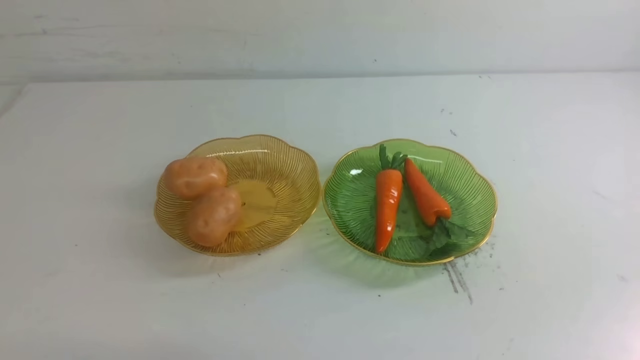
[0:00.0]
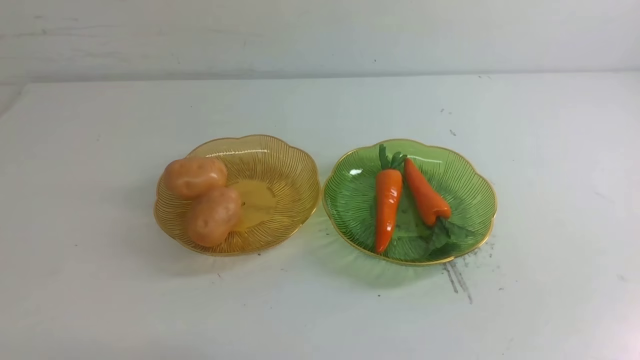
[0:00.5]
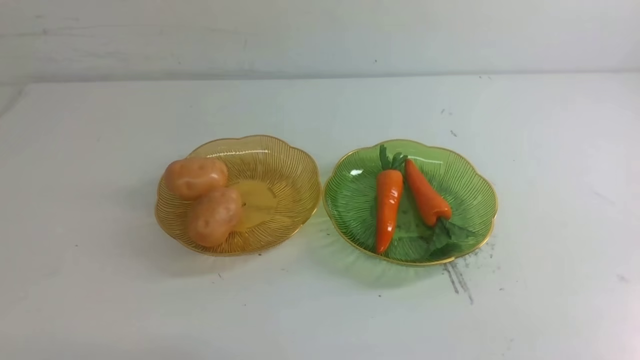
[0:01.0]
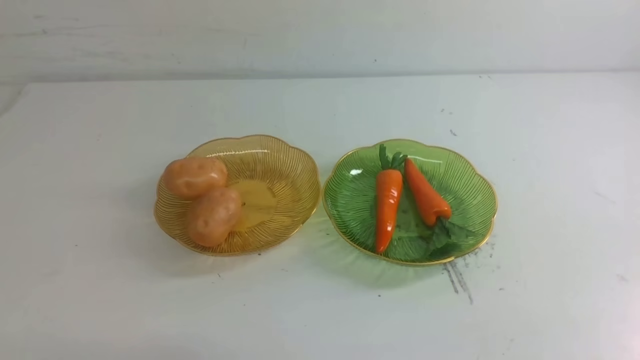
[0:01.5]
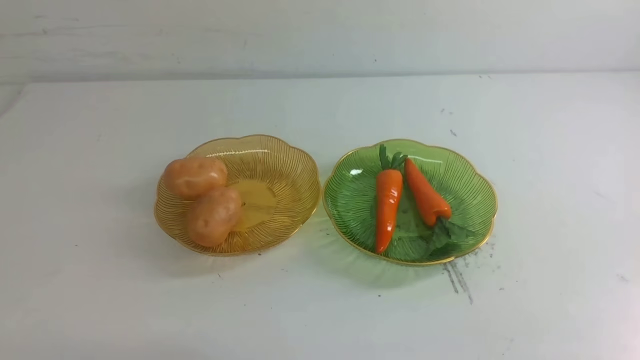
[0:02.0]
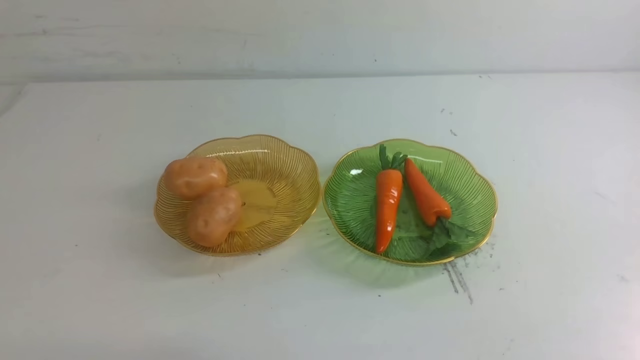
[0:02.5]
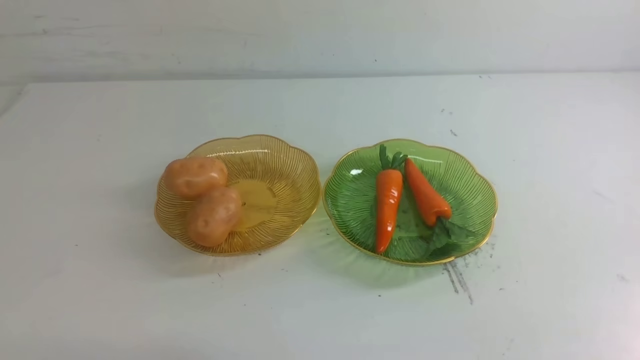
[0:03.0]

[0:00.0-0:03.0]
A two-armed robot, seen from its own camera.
0:01.5 to 0:03.0: Both grippers stay about where they are.

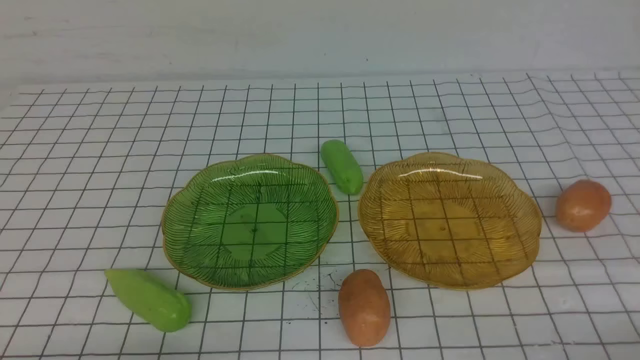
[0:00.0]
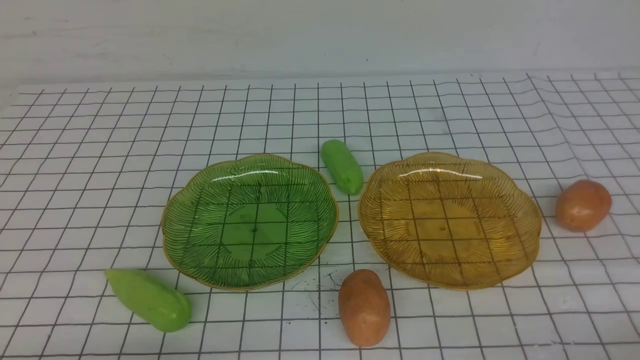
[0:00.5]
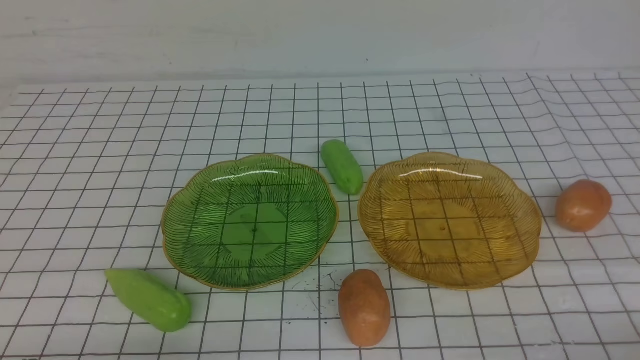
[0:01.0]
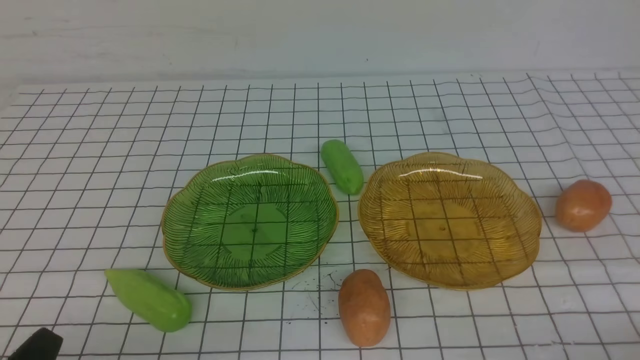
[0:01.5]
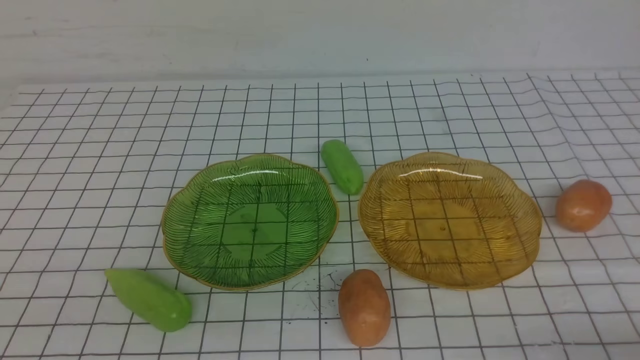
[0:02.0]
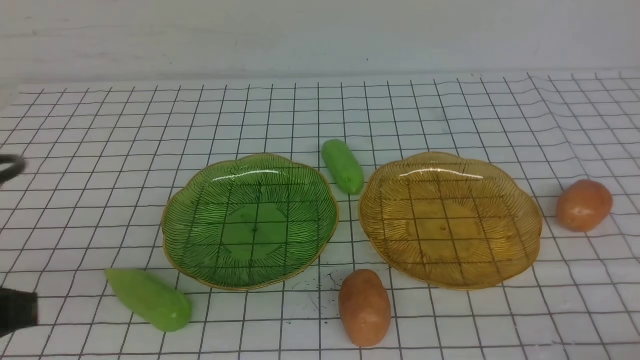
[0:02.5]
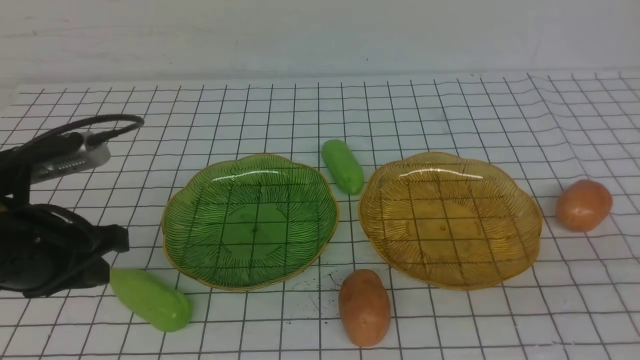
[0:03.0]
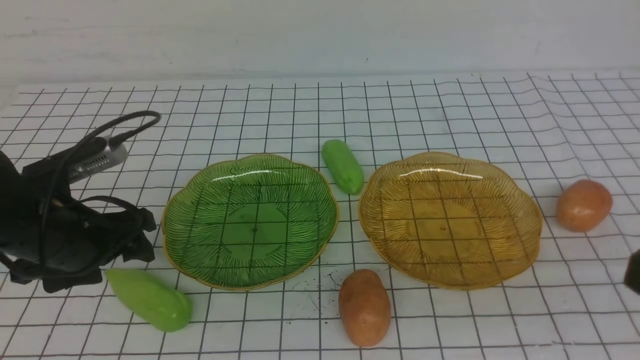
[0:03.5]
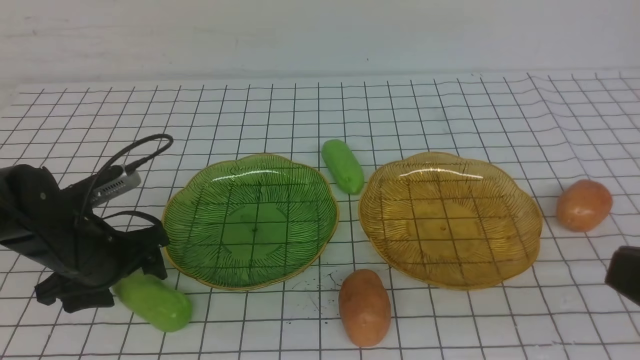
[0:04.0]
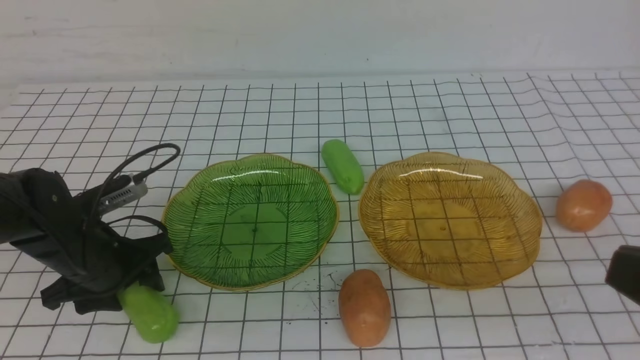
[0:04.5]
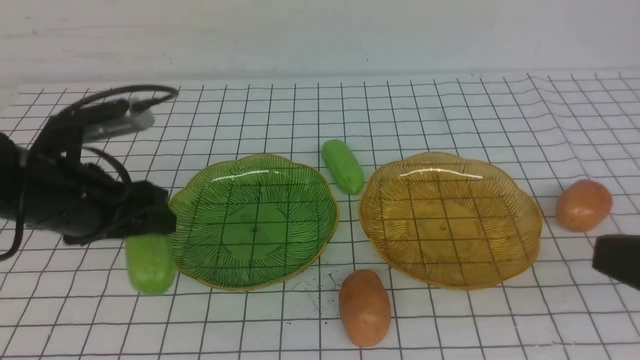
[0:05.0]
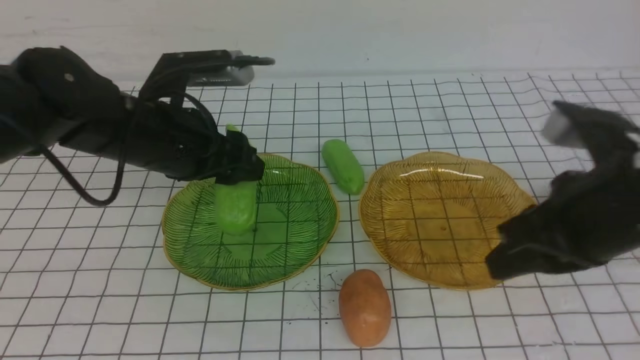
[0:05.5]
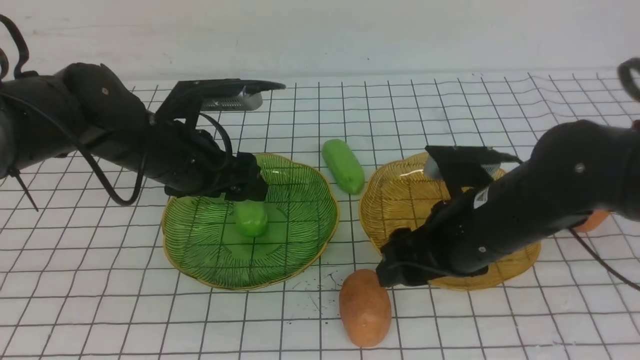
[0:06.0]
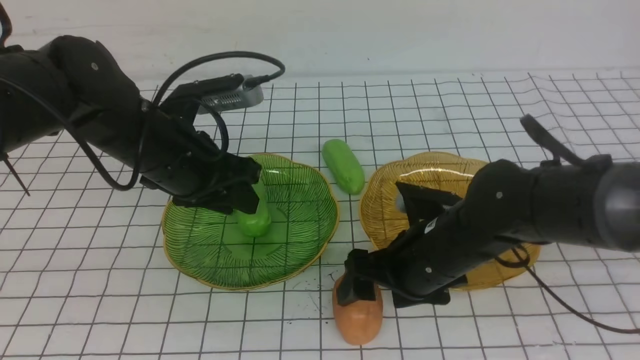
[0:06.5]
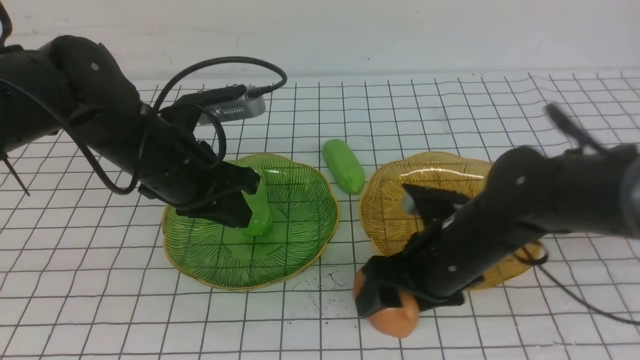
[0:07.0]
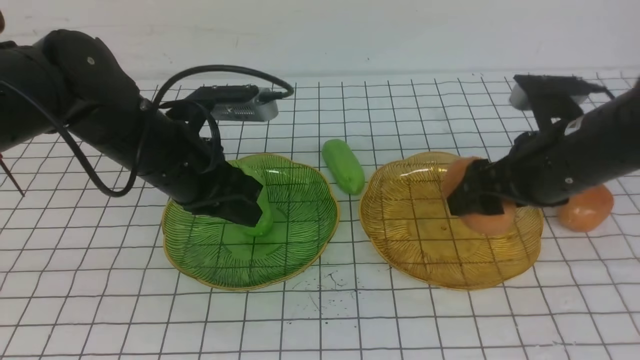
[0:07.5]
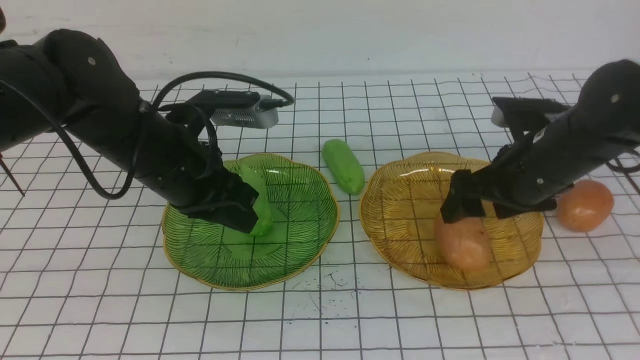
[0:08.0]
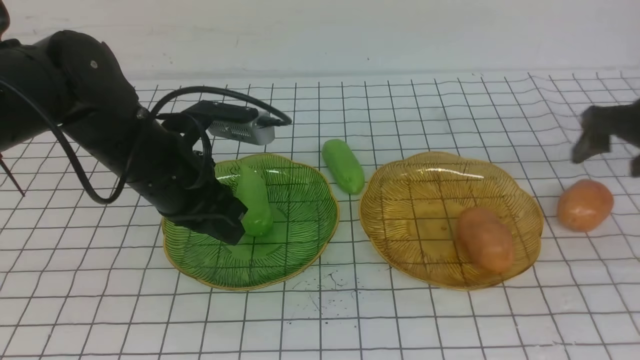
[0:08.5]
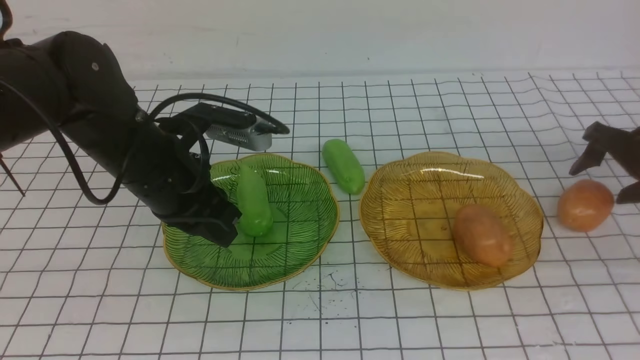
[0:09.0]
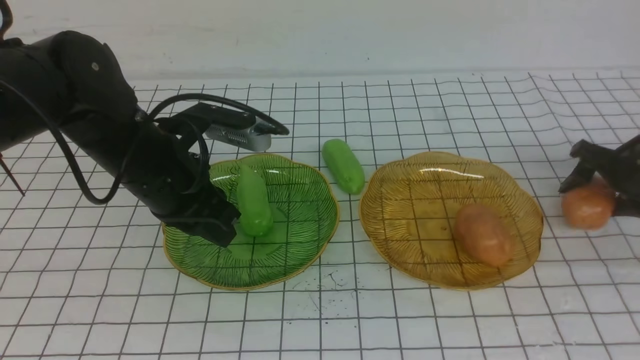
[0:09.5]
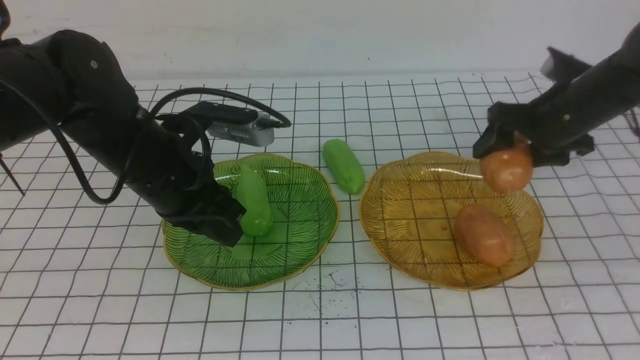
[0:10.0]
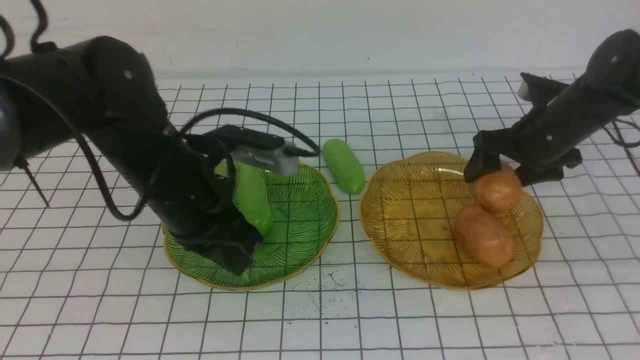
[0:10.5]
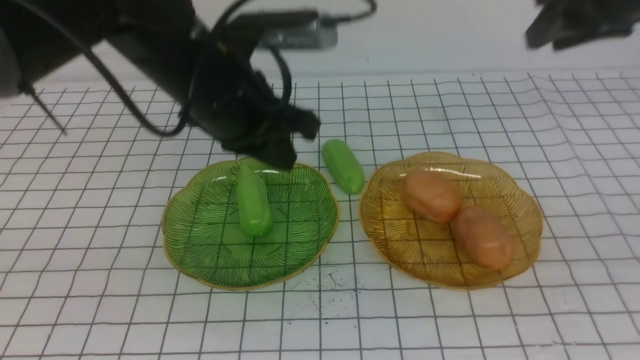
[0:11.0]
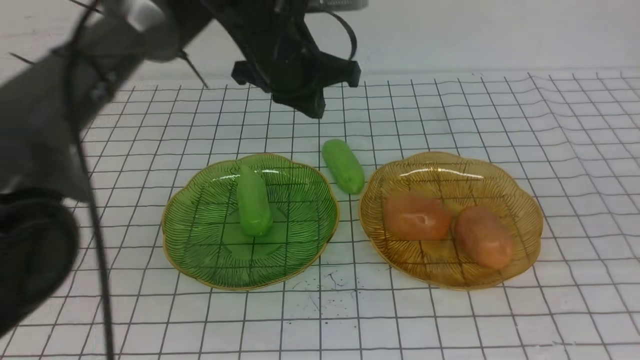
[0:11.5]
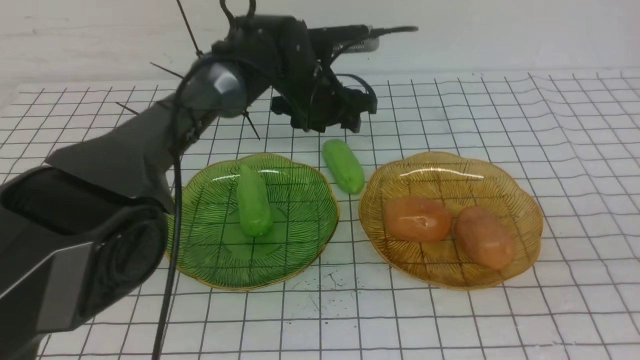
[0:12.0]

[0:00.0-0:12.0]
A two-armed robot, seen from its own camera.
Step, 0:00.0 to 0:06.5: use the left arm to grab a chayote and put it into the left plate.
Step, 0:07.0 to 0:08.0: Grab a potato with your right arm and put it on the right plate.
Step, 0:08.5 to 0:10.5: Grab a potato with your right arm and put it on the right plate.
0:02.0 to 0:04.0: The right gripper travels upward by some 15 cm. The left gripper moves forward and downward, roughly 30 cm, and opens.
0:04.0 to 0:06.0: The left gripper moves to the right, upward and forward, approximately 15 cm. The right gripper is displaced forward, to the left and downward by some 25 cm, and opens up.
0:06.0 to 0:08.0: The right gripper shifts approximately 15 cm to the right and forward, while the left gripper closes up.
0:08.0 to 0:10.0: The right gripper shifts some 10 cm forward and to the right.
0:10.0 to 0:12.0: The right gripper heads backward and upward, covering some 40 cm, and closes. The left gripper travels forward and to the right by about 20 cm, and opens.

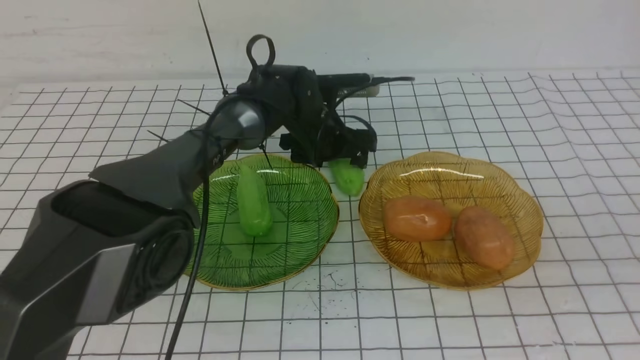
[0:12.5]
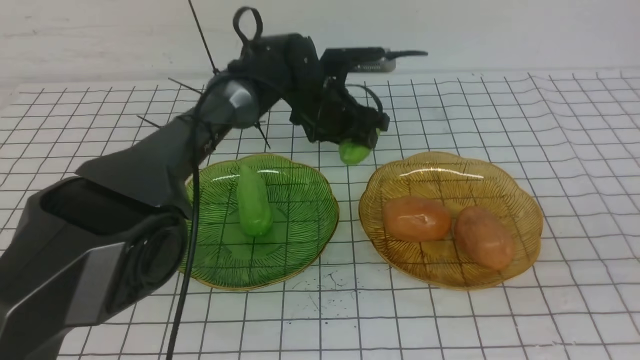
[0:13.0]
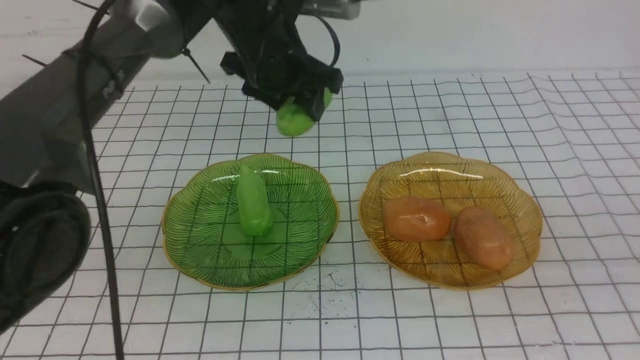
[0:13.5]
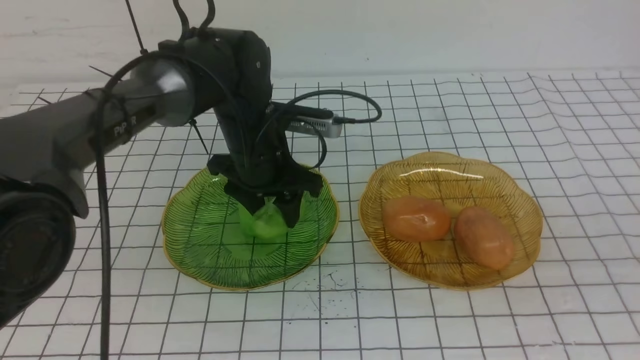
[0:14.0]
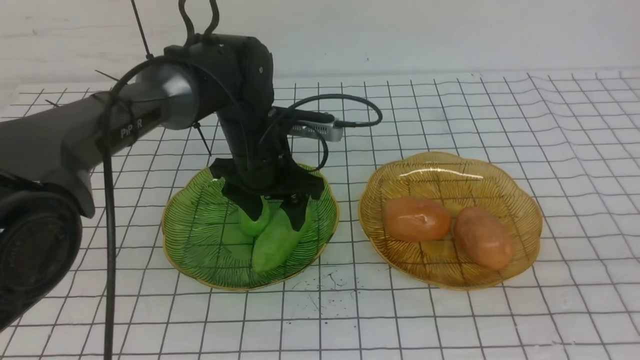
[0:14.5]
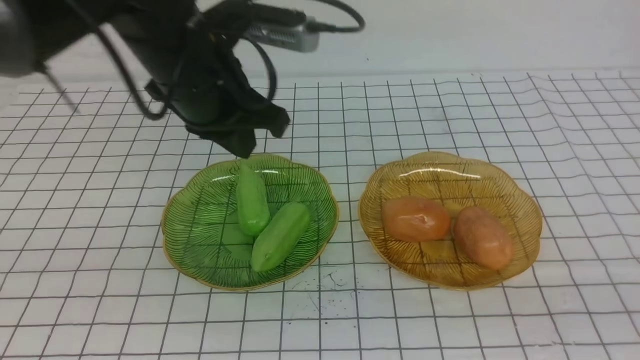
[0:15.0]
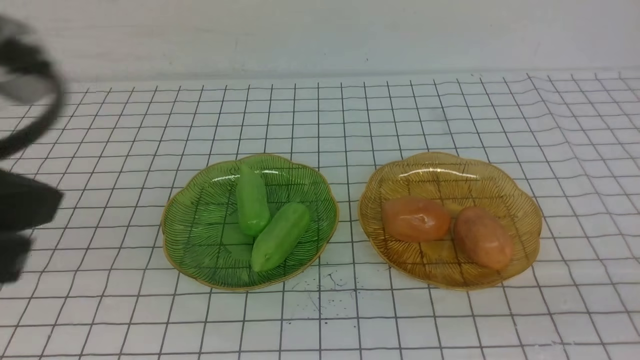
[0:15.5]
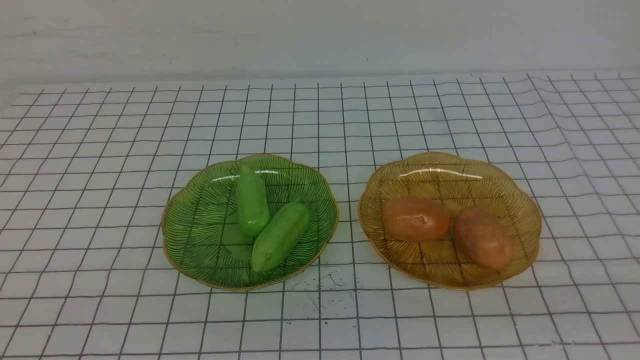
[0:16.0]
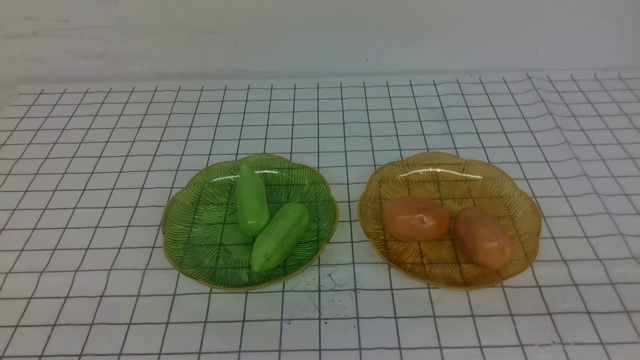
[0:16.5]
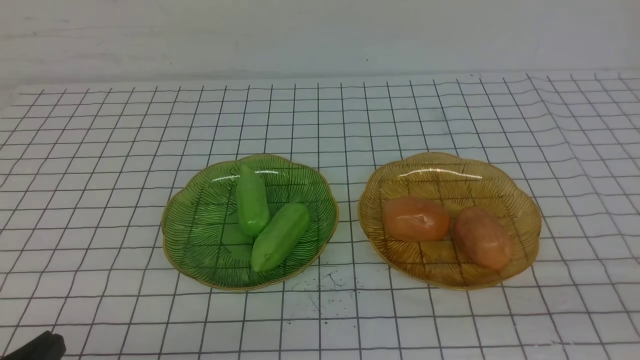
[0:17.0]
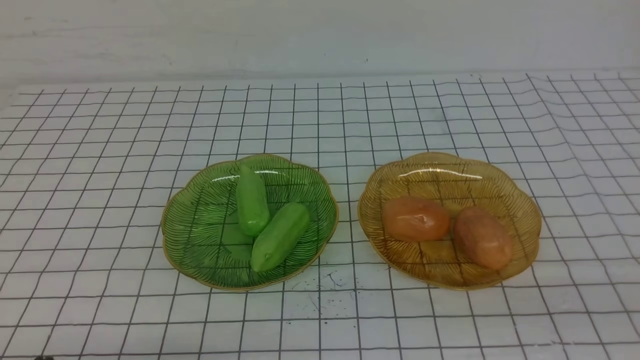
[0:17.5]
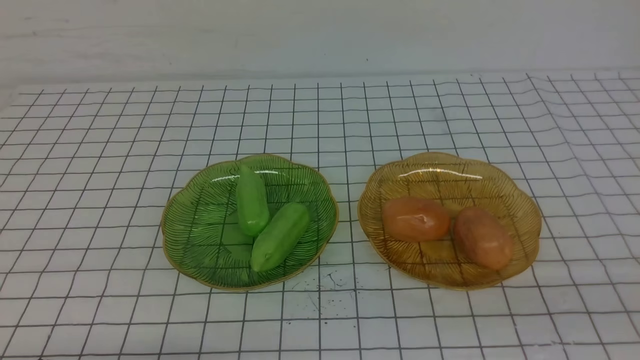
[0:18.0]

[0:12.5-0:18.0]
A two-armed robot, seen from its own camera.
Step, 0:12.5 to 0:14.5: use the left arm to grab a chayote and put it into the left plate.
0:12.5 to 0:14.5: The left gripper heads backward, to the left and upward, covering some 15 cm. The right gripper is displaced backward by approximately 5 cm.
0:14.5 to 0:16.0: The left gripper heads backward and to the left, covering about 50 cm, and closes up. Meanwhile the right gripper heads downward, covering roughly 10 cm.
